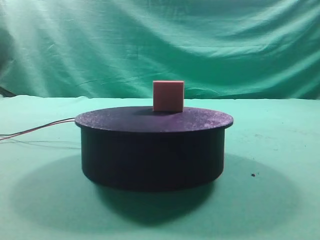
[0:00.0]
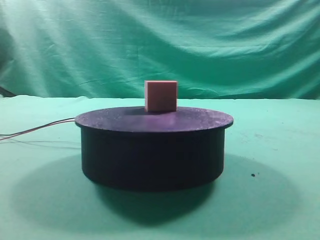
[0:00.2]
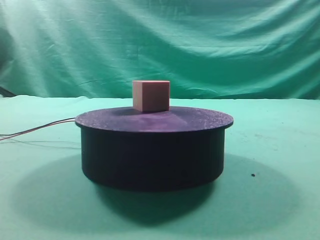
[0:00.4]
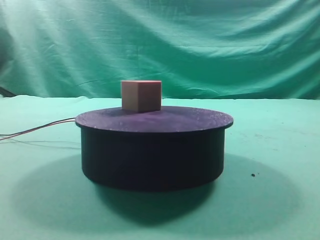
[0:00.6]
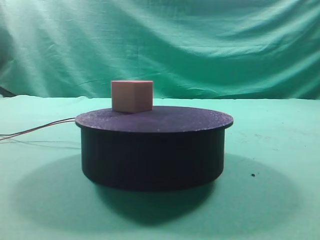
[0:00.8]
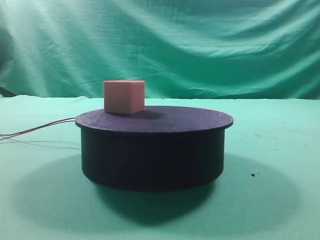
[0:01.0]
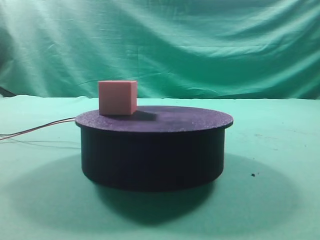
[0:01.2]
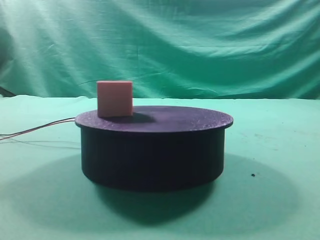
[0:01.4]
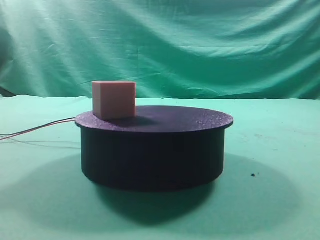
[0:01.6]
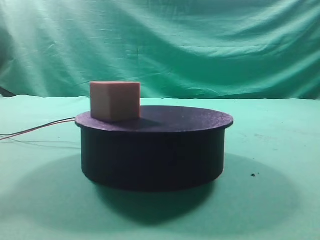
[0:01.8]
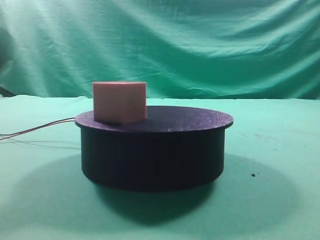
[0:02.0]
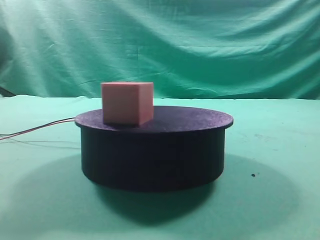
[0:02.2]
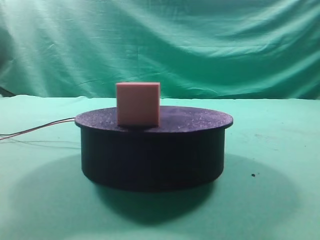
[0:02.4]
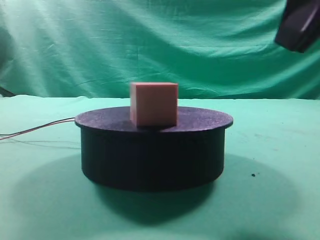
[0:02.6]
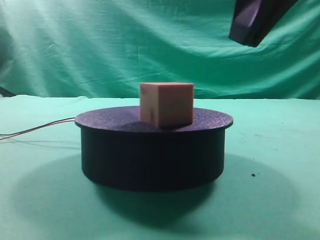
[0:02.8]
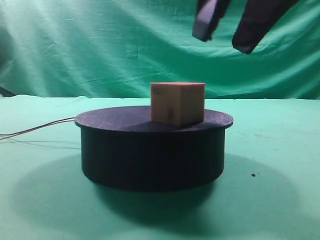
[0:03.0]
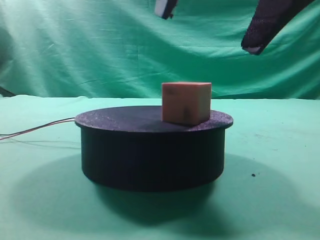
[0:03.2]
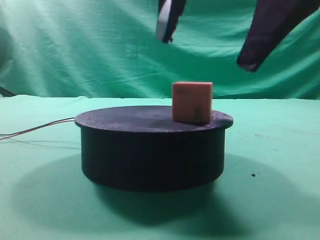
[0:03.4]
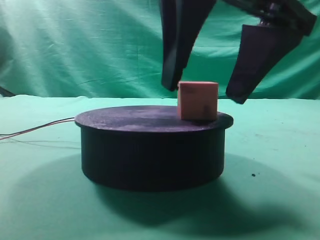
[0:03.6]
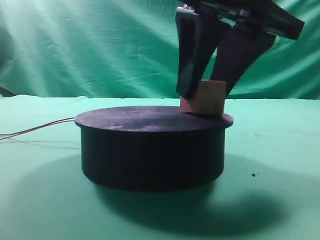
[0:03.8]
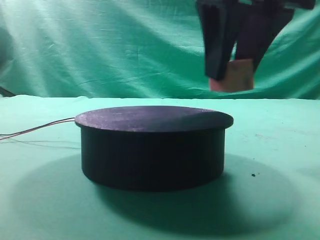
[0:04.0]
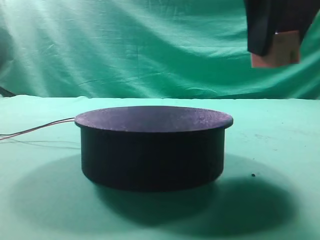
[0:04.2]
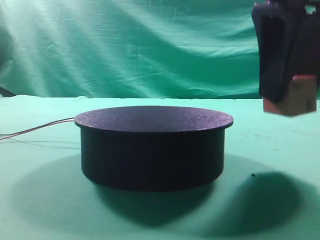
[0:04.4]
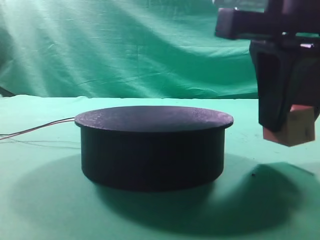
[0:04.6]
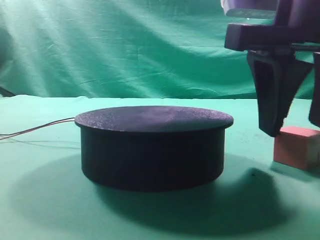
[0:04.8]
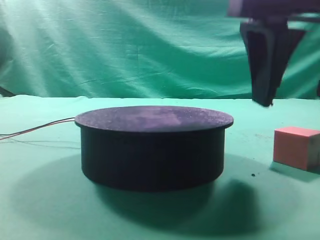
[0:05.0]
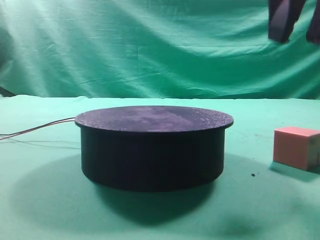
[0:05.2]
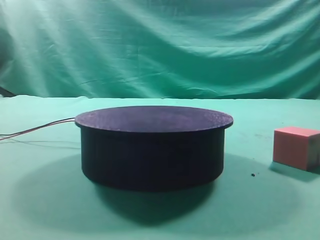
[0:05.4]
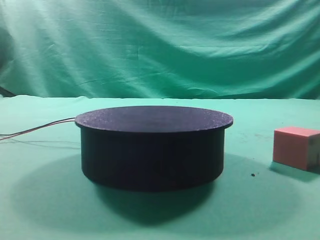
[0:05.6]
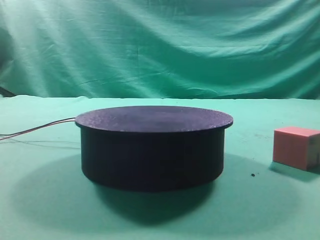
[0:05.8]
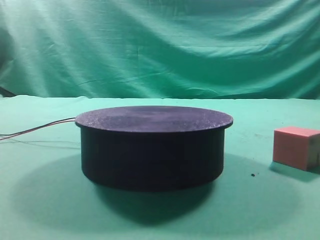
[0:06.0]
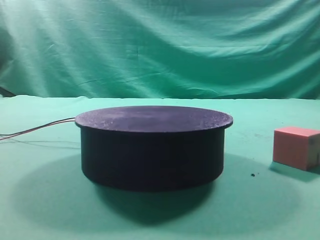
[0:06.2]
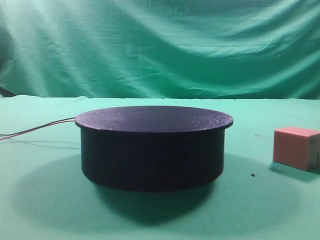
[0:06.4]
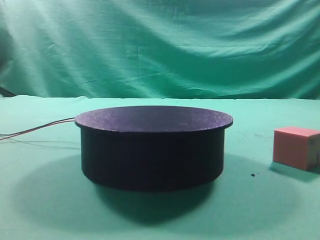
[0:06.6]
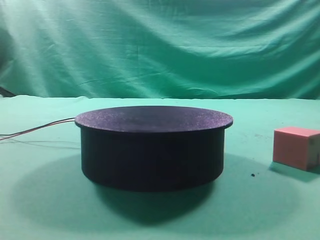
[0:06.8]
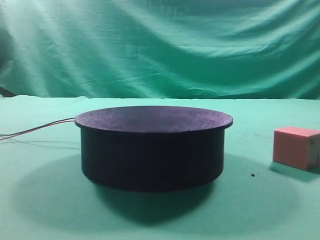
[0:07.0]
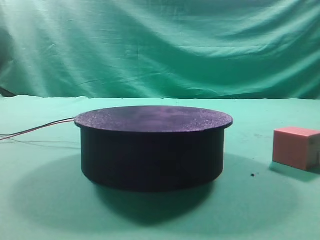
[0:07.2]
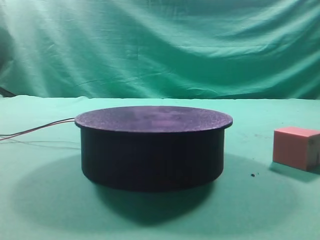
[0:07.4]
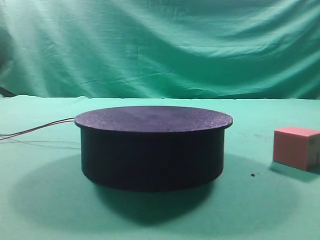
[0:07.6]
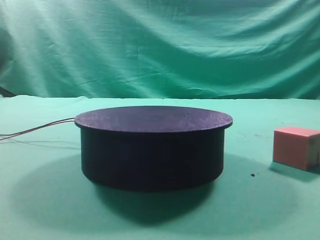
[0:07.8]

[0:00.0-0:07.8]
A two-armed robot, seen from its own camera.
Task of the whole recording: grasp the rotating cube-shaped block on the turntable and place it on the table.
Step, 0:00.0 to 0:03.8: Grasp the rotating cube-shaped block on the turntable.
Step, 0:04.0 to 0:05.0: Place the cube on the desk.

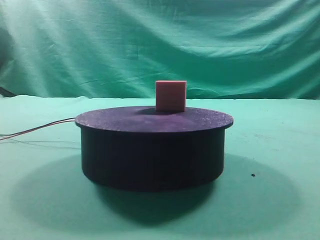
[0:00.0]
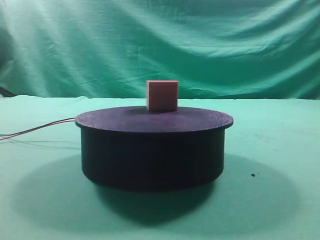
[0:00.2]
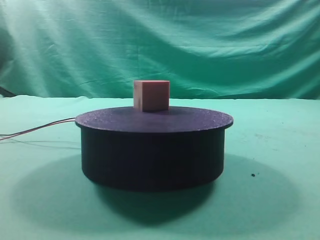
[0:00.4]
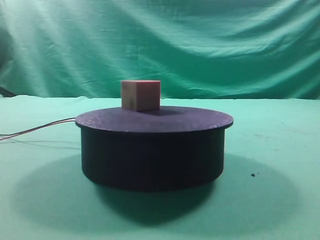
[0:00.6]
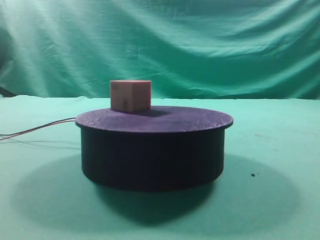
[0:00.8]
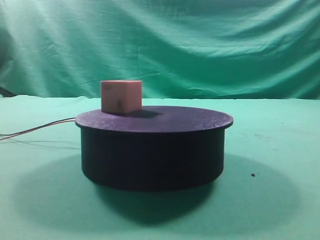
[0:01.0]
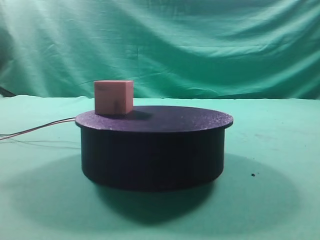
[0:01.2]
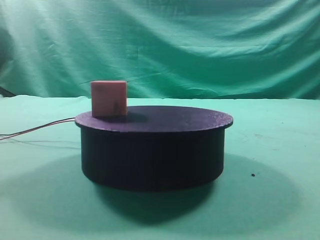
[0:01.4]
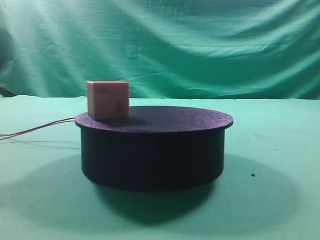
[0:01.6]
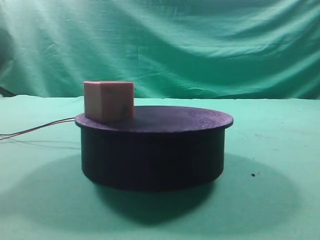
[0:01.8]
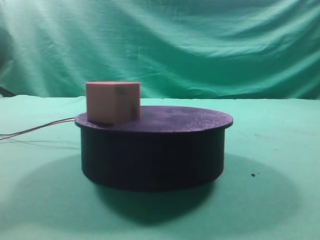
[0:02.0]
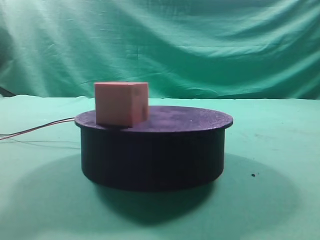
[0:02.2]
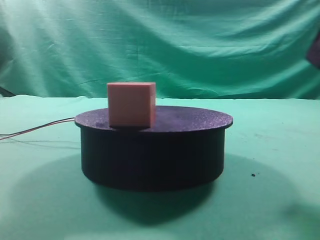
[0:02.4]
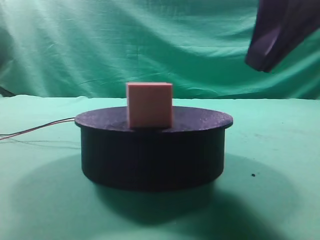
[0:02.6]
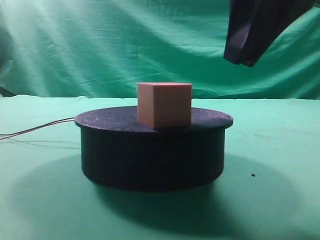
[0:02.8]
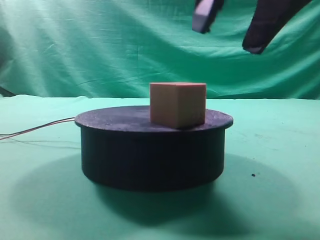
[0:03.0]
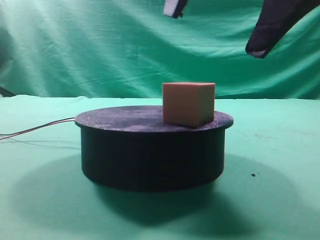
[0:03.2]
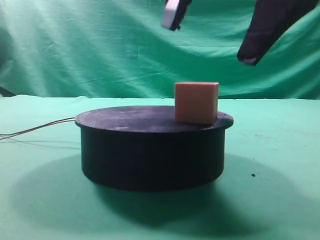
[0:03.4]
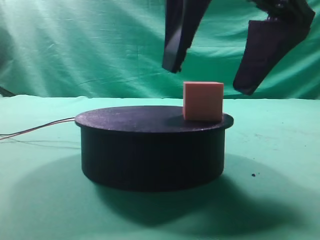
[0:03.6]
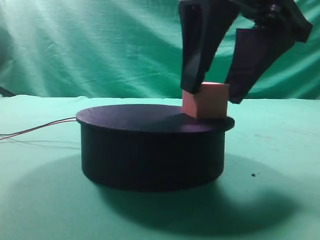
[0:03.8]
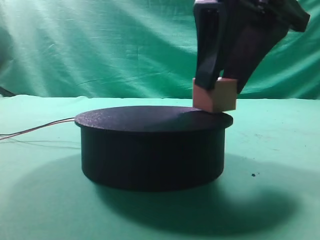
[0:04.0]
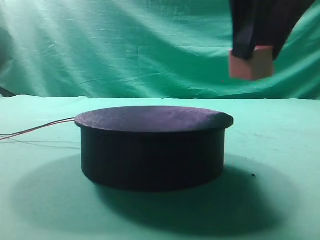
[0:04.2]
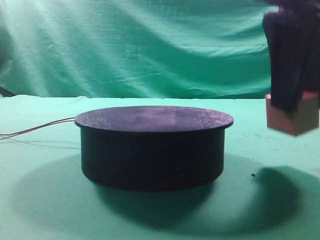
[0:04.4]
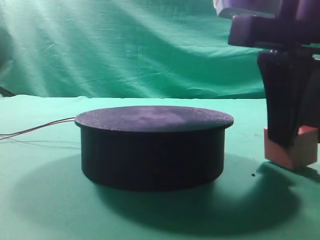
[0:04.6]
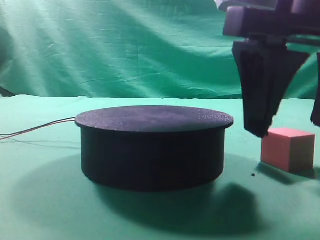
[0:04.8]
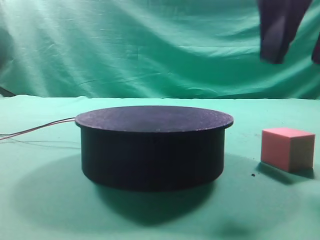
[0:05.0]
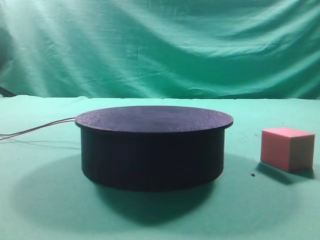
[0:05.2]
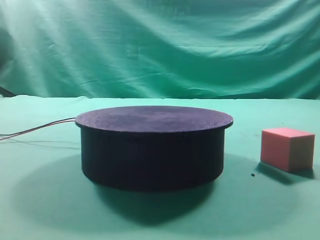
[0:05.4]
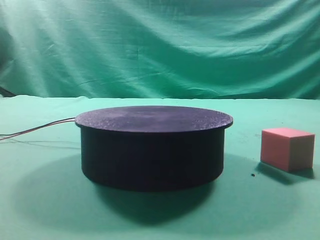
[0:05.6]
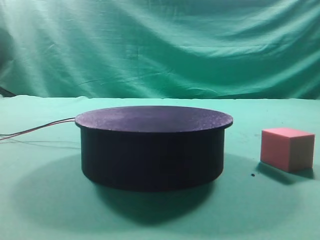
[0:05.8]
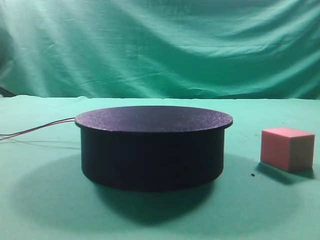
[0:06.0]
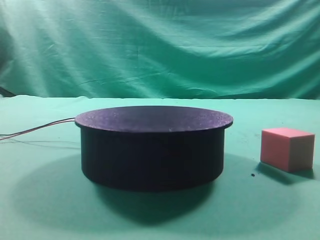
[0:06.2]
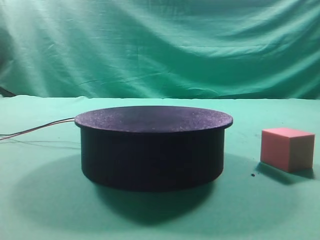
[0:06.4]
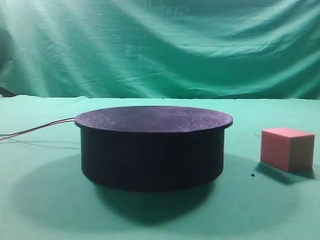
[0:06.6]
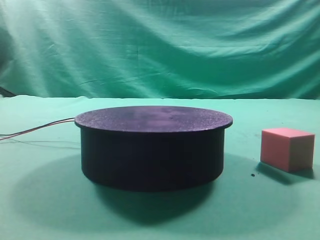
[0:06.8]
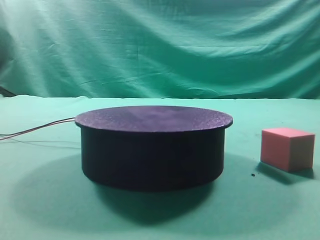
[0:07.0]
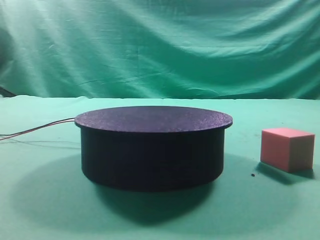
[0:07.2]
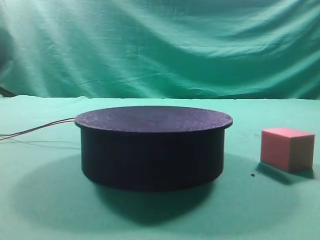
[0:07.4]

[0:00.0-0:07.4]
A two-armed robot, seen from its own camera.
Task of the whole recording: grasp the rotating cube-shaped block on the turntable and place it on the table.
Step, 0:00.0 to 0:04.0: Grasp the rotating cube-shaped block on the turntable.
Step, 0:04.2 to 0:04.8: Place the cube on the desk.

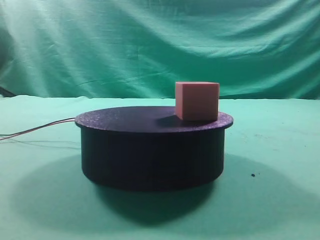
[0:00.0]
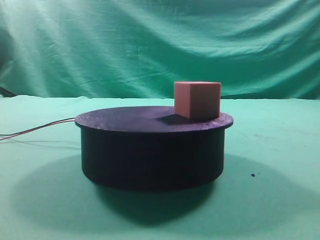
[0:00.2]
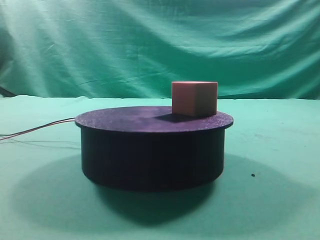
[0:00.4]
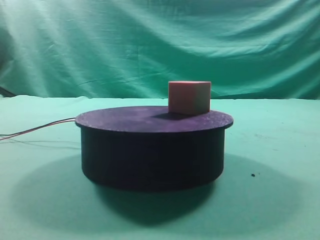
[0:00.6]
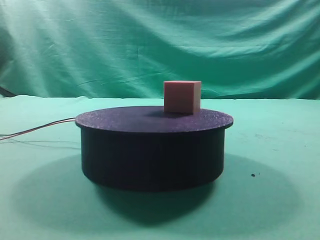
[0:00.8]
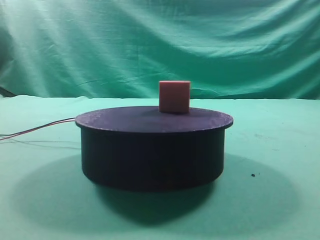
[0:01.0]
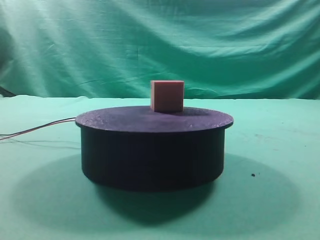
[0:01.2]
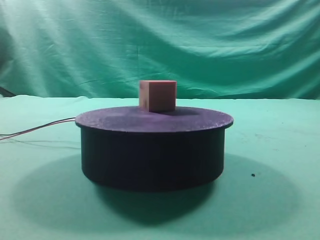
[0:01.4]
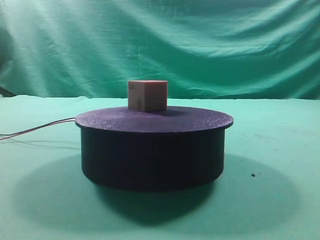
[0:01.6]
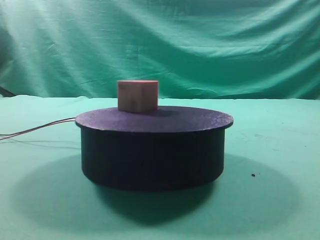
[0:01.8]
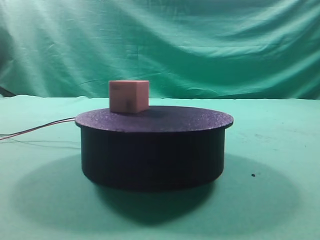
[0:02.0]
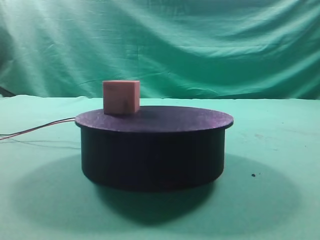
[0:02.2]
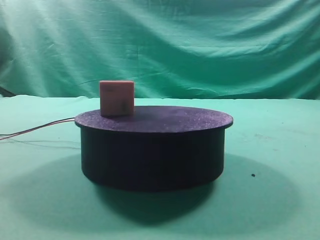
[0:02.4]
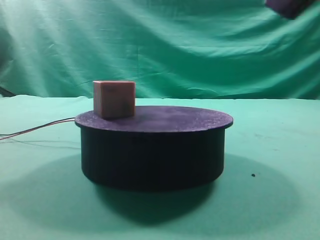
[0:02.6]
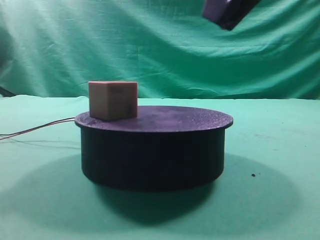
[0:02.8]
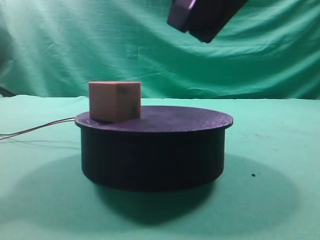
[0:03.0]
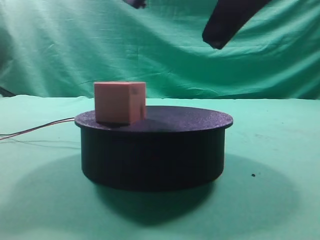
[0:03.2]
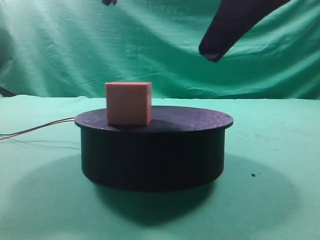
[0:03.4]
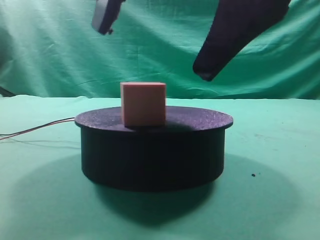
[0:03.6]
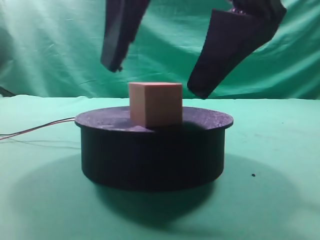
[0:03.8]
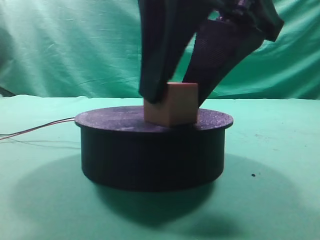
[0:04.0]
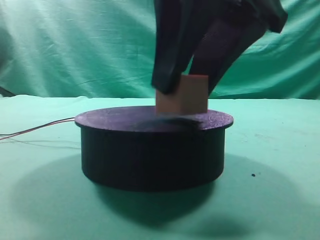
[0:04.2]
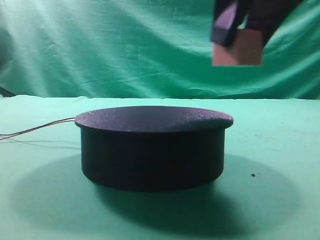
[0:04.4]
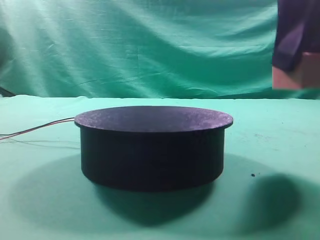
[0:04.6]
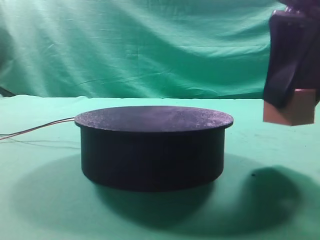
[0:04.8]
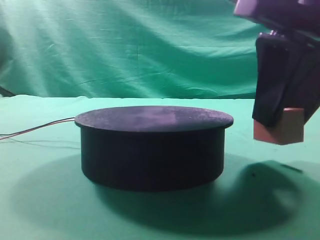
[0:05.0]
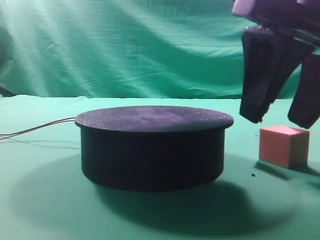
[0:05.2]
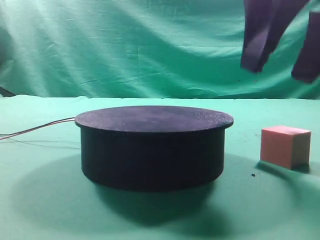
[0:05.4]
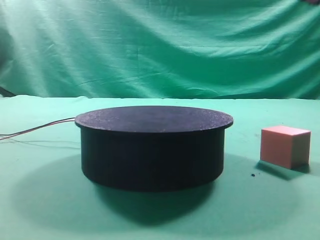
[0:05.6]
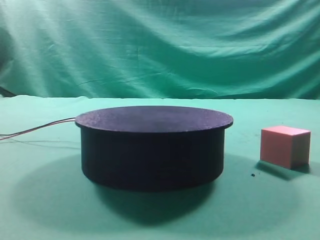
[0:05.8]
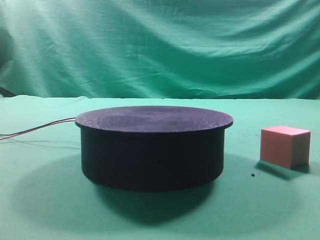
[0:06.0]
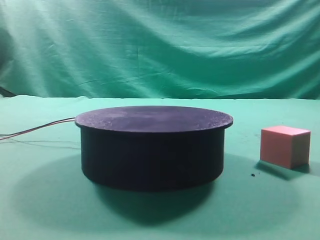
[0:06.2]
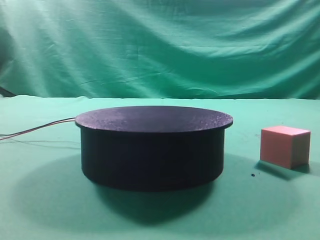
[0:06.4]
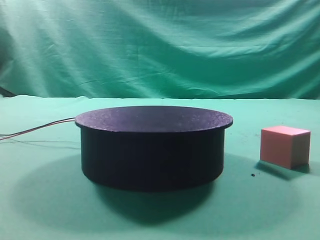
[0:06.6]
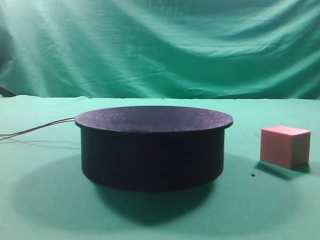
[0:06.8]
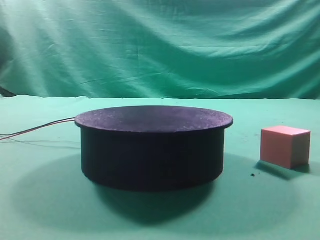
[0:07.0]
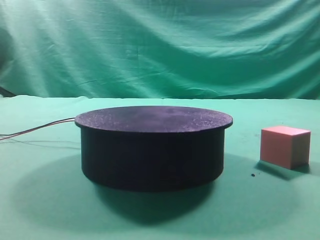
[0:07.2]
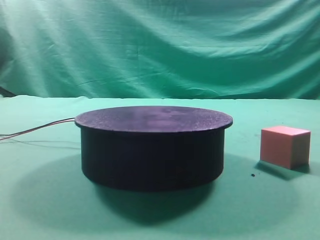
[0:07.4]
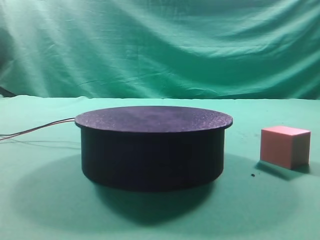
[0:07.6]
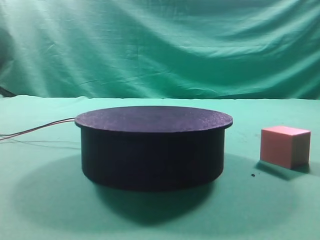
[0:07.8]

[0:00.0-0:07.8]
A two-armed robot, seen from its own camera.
Task of the whole recording: grasp the rotating cube-shaped block on the turntable and place it on the table.
Step, 0:00.0 to 0:04.2: Grasp the rotating cube-shaped block on the turntable.
Step, 0:04.4 to 0:05.2: Place the cube on the desk.
